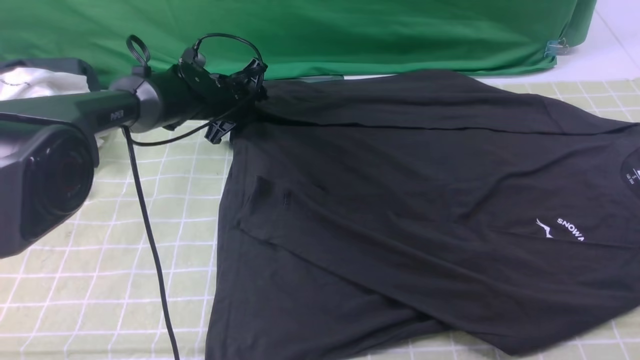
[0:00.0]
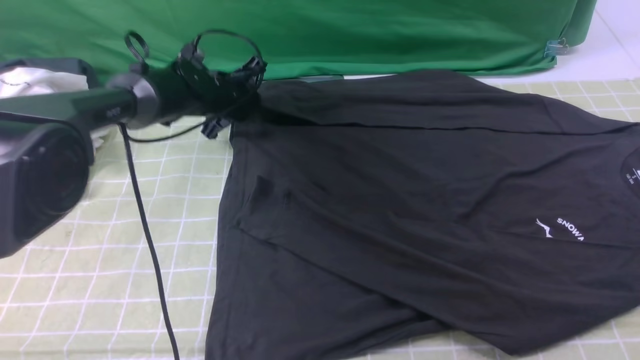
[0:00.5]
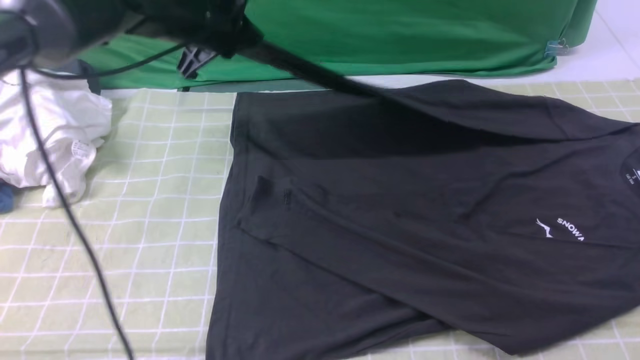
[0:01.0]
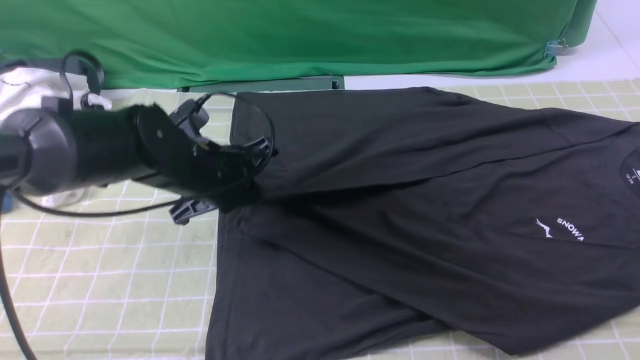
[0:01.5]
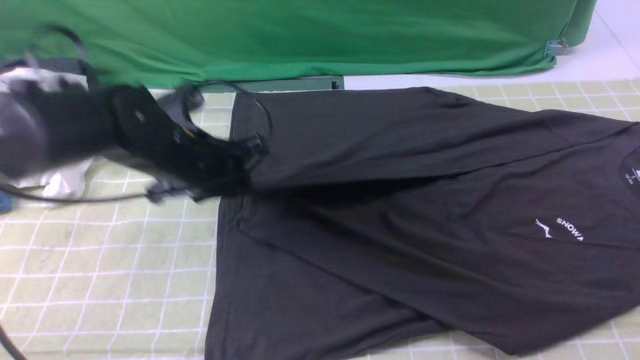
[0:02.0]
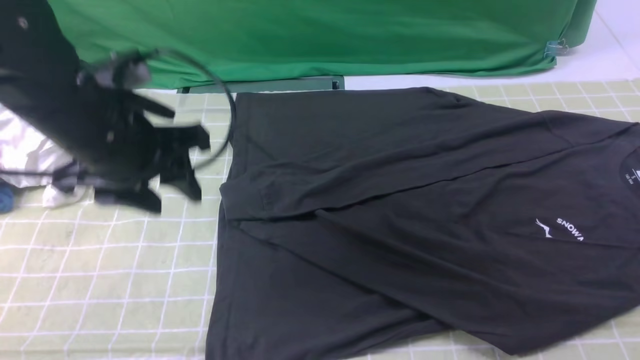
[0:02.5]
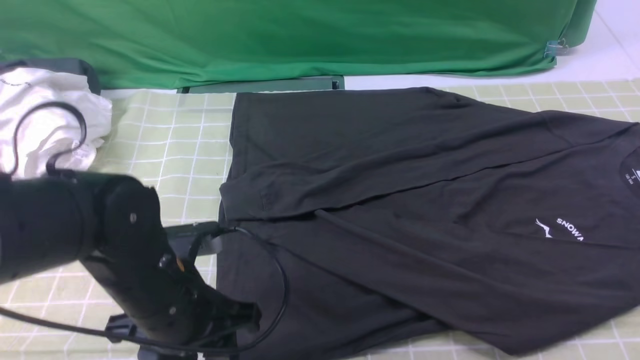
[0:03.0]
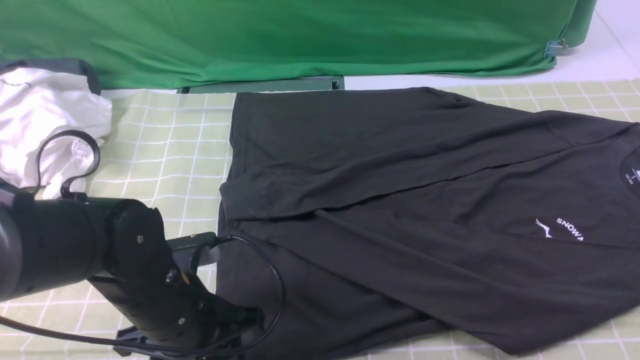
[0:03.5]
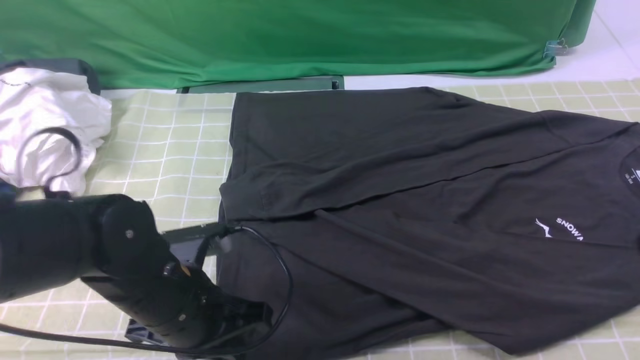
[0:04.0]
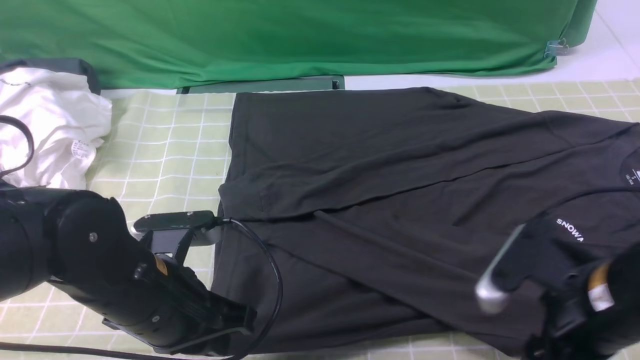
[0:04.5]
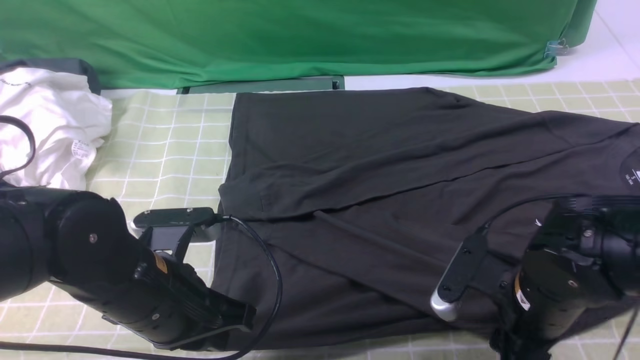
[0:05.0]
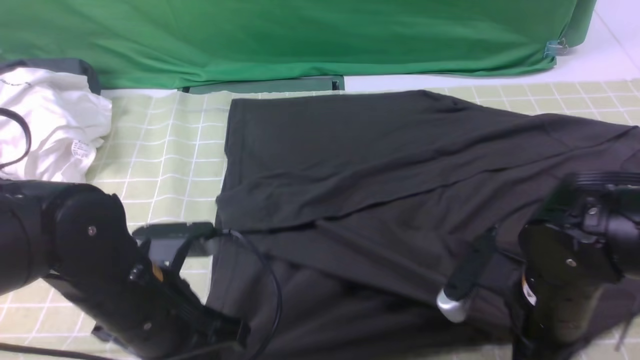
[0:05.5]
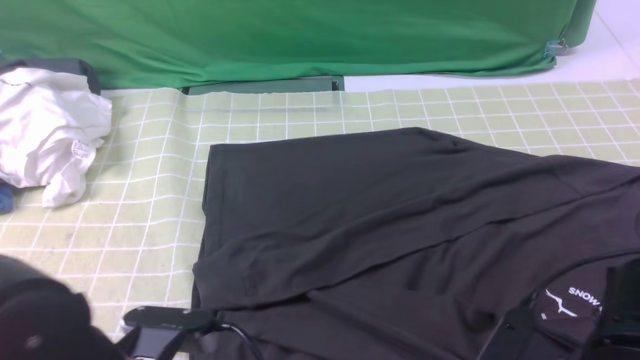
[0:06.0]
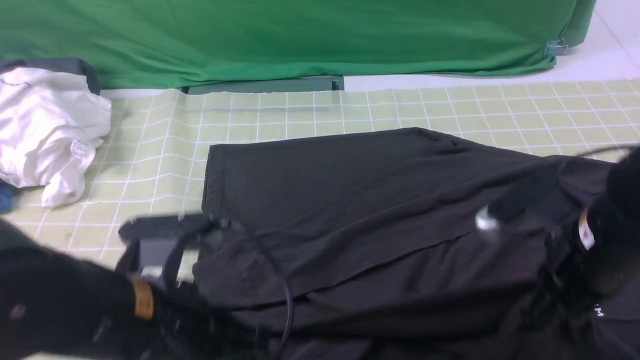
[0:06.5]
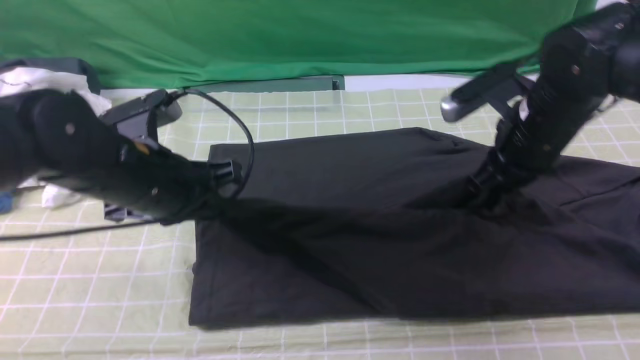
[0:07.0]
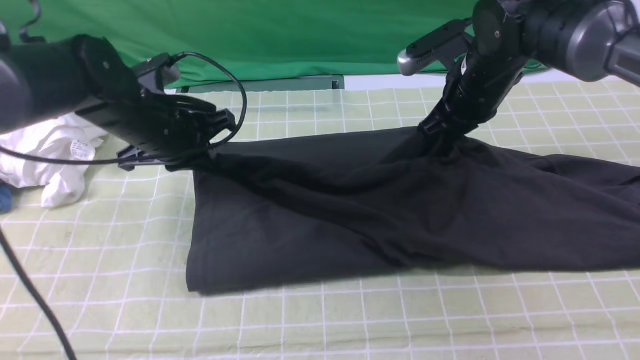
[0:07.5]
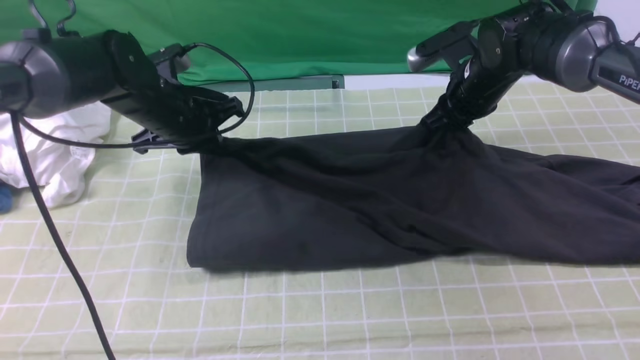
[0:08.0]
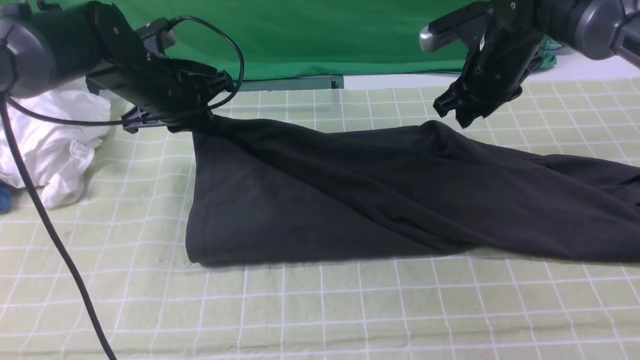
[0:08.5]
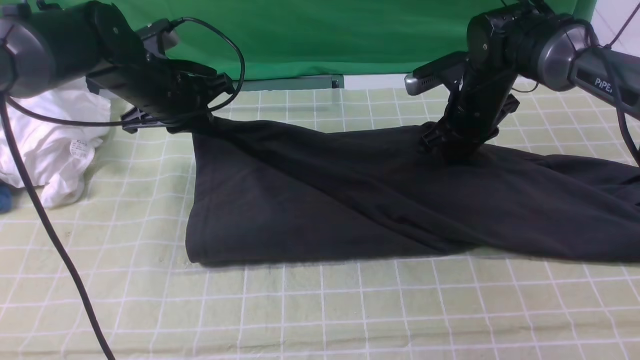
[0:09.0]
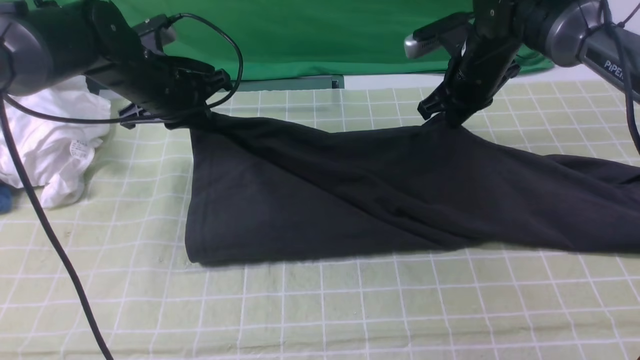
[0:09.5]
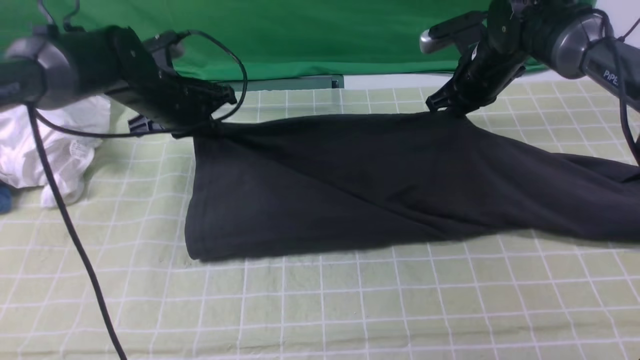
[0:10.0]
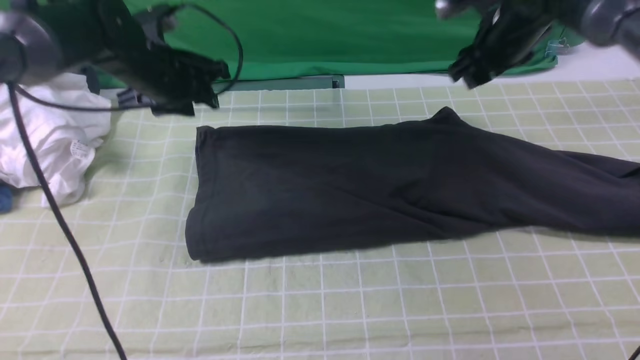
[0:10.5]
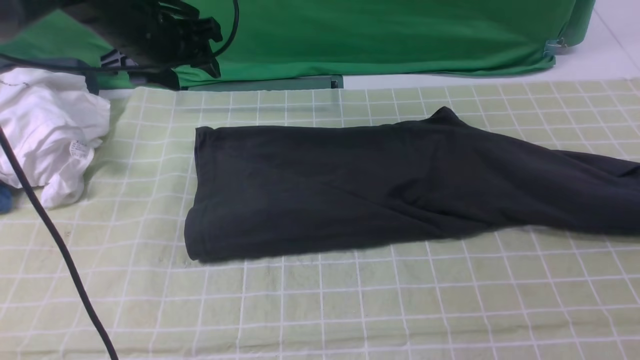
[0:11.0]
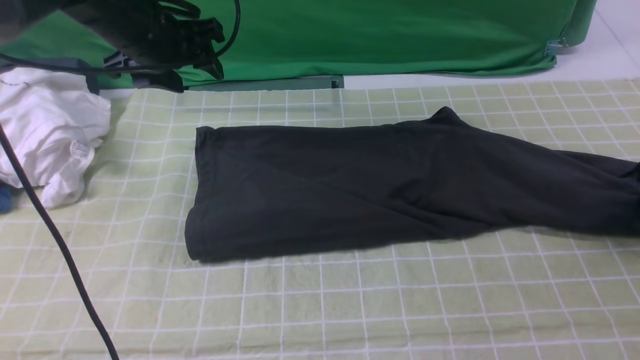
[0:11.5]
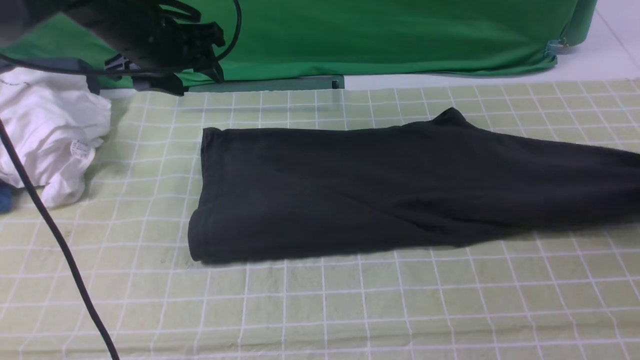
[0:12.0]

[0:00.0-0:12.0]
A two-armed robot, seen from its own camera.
Step, 0:00.5 to 0:02.0: use the left arm to drag and drop the cuff onto the cuff closest to the left arm.
Step, 0:02.5 to 0:05.0: use both arms simultaneously to clamp the lower edge of the clothing fabric.
Step, 0:05.5 to 0:10.0: use both arms to drag the lower edge of the fabric forward and fold it over the upper edge.
0:00.0 to 0:02.0: The left gripper travels backward and upward by roughly 20 cm, and closes and opens again.
0:02.0 to 0:04.0: The left gripper moves backward, about 15 cm, and opens and closes again.
0:04.0 to 0:06.0: The left gripper travels backward by roughly 10 cm. Meanwhile the right gripper heads downward and to the left, covering approximately 15 cm, and closes up.
0:06.0 to 0:08.0: The two grippers go approximately 35 cm forward.
0:10.0 to 0:12.0: The left gripper shifts roughly 10 cm upward, and opens. Meanwhile the right gripper is displaced to the right and backward by about 25 cm, and opens and closes again.

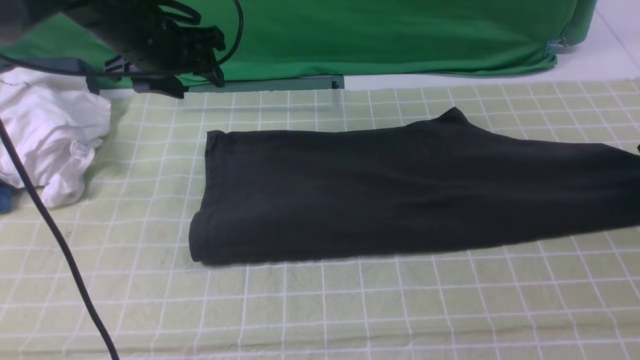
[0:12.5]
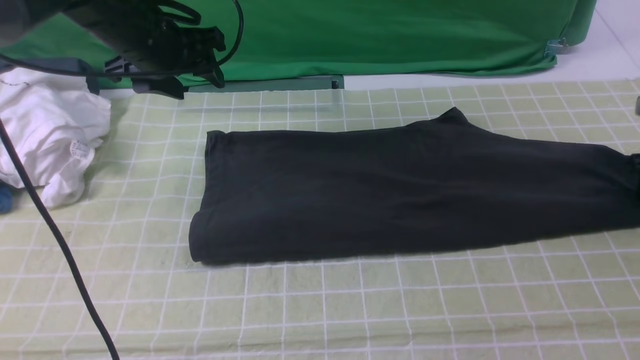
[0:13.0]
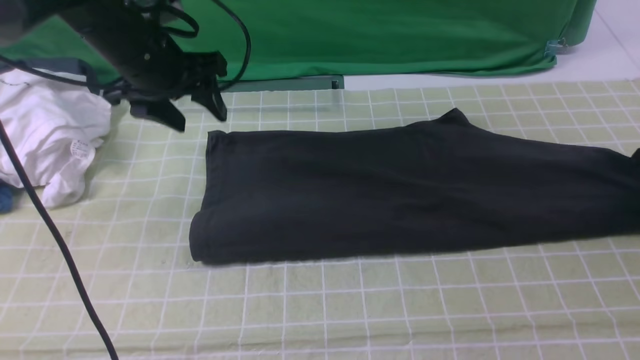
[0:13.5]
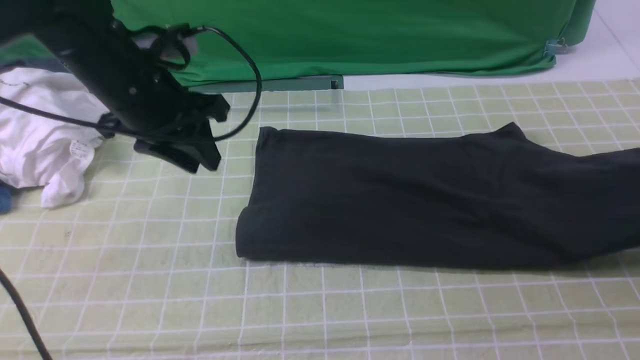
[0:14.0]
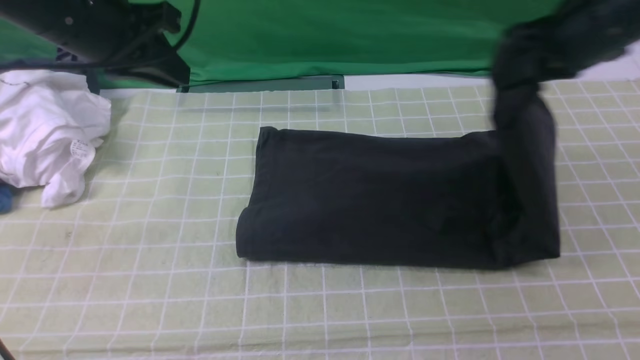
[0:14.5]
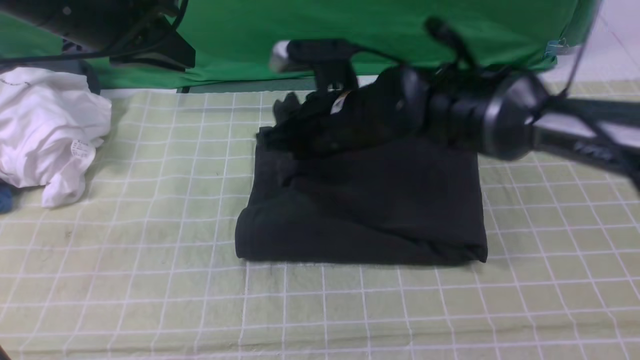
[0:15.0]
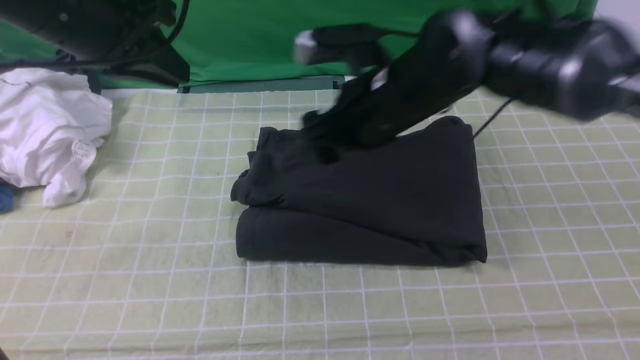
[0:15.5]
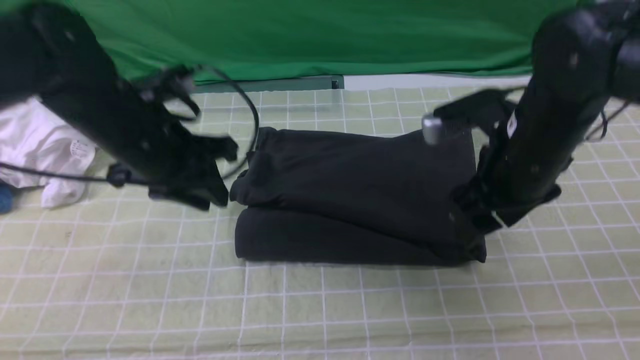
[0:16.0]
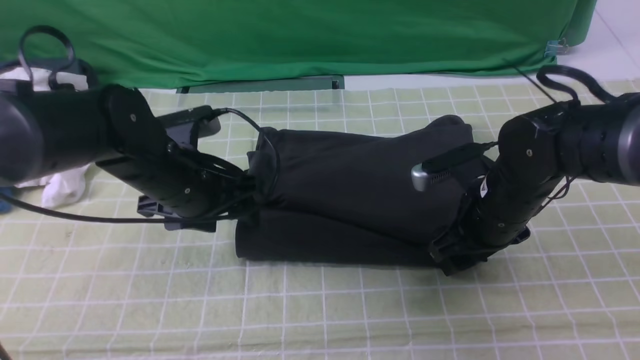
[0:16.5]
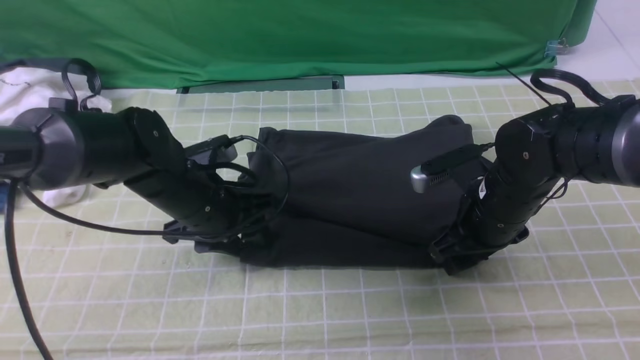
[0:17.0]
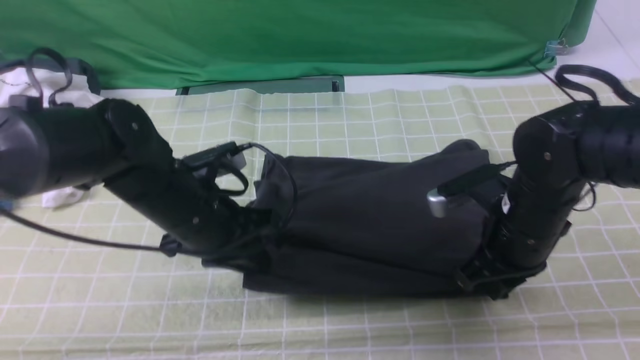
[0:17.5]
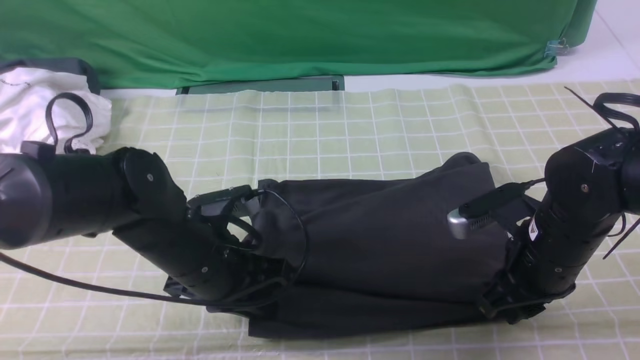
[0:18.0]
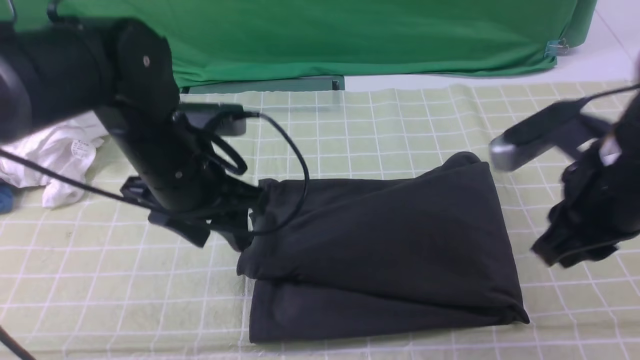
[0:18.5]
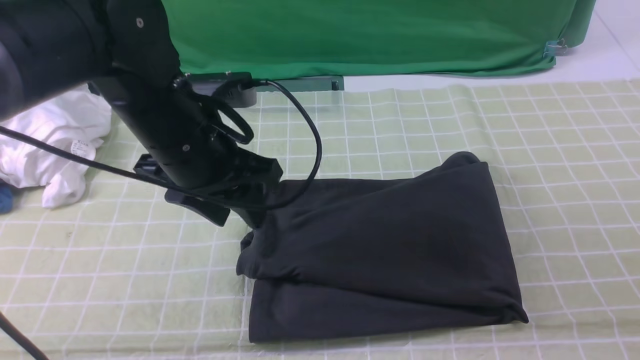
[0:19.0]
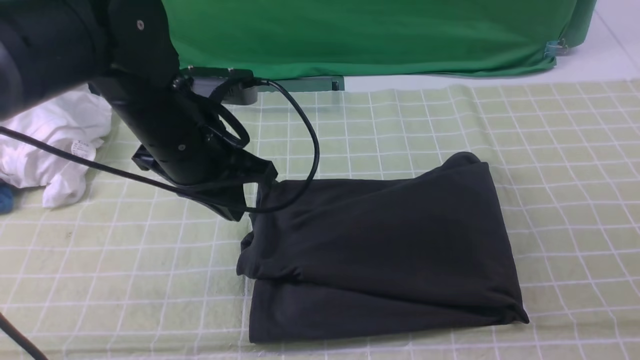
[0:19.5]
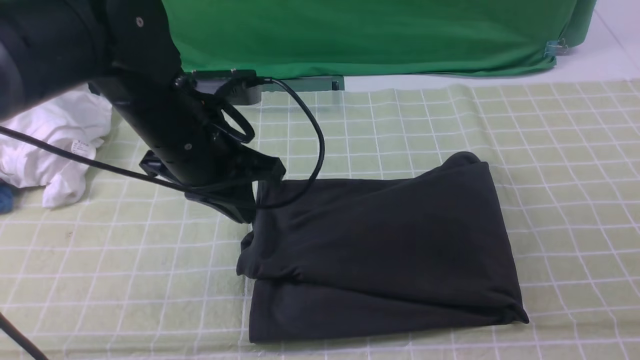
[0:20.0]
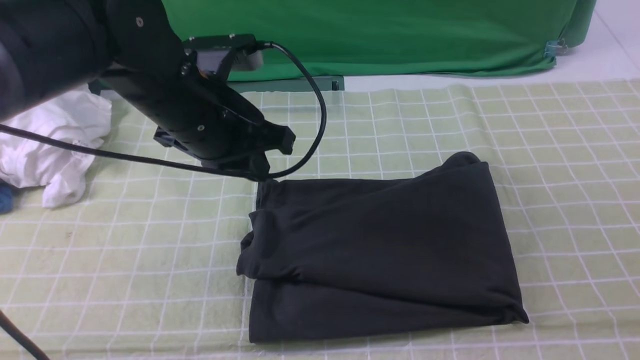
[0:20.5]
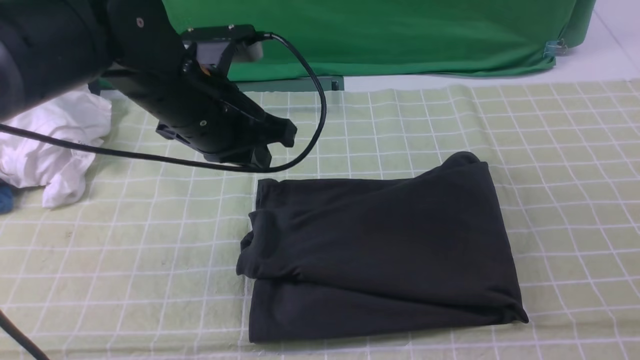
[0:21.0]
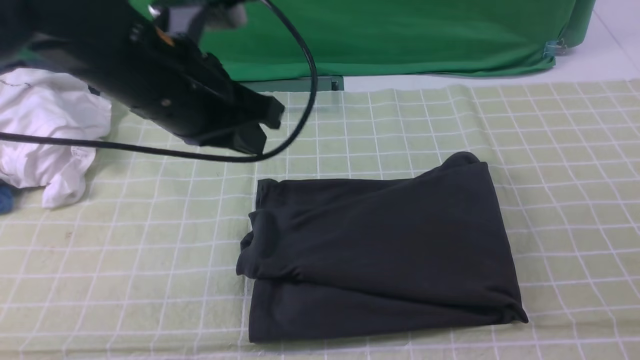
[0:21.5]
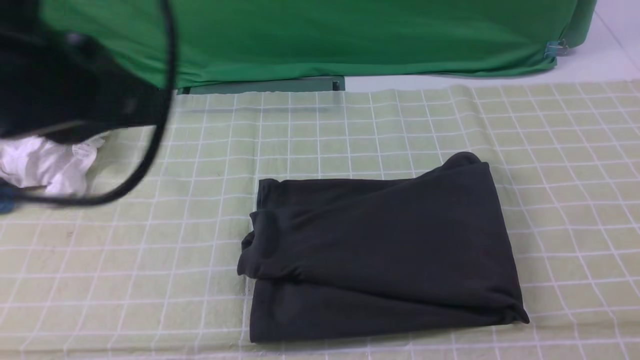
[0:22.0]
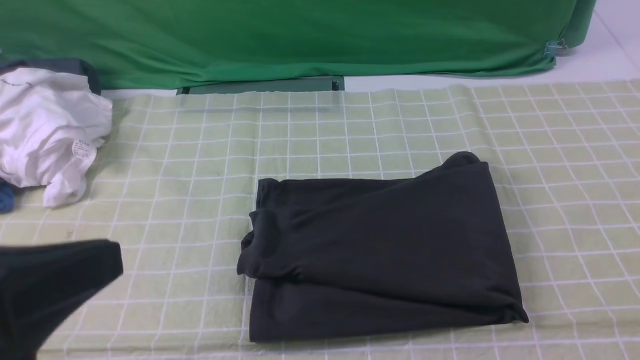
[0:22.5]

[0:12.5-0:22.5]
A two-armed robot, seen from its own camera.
Step, 0:14.0 to 0:15.0: use the right arm to drag the right edge of the fabric to the left and folds it over the left edge.
0:12.5 to 0:14.5: The left gripper goes approximately 10 cm backward and upward, and closes its fingers, while the right gripper shifts roughly 25 cm to the left and upward, and closes up.
0:14.5 to 0:16.5: The left gripper travels downward by some 15 cm, and opens up; the right gripper heads downward and backward, covering about 15 cm, moves roughly 20 cm to the left and comes back, and opens up.
0:16.5 to 0:18.5: The left gripper goes approximately 5 cm upward, and closes, then reopens; the right gripper moves upward and backward, about 15 cm, and closes its fingers.
0:18.5 to 0:20.5: The right gripper shifts approximately 20 cm backward and to the right. Meanwhile the left gripper closes.
0:20.5 to 0:22.5: The left gripper moves backward, some 25 cm, while the right gripper goes about 10 cm downward.
